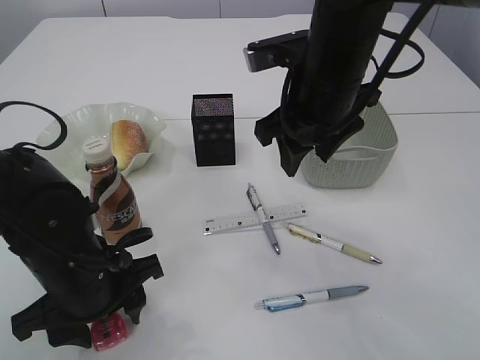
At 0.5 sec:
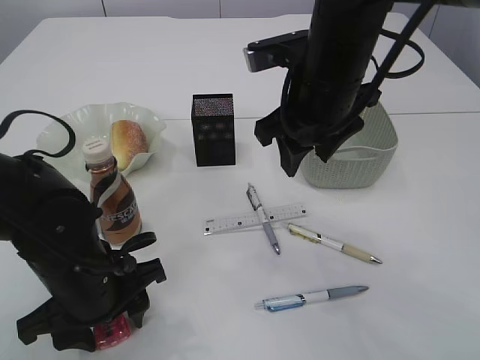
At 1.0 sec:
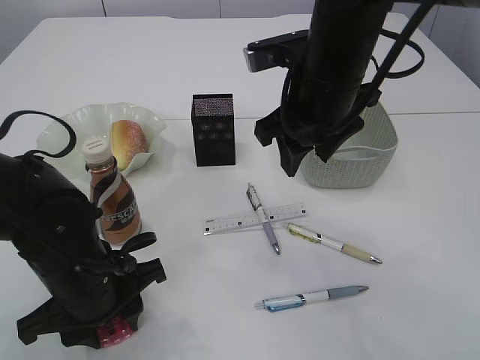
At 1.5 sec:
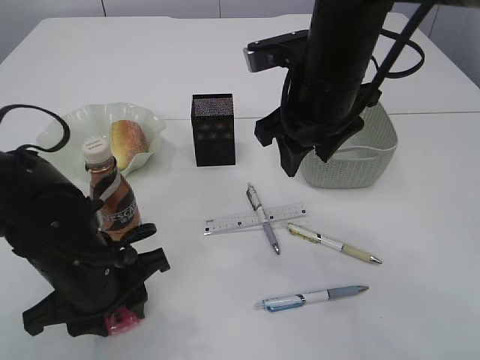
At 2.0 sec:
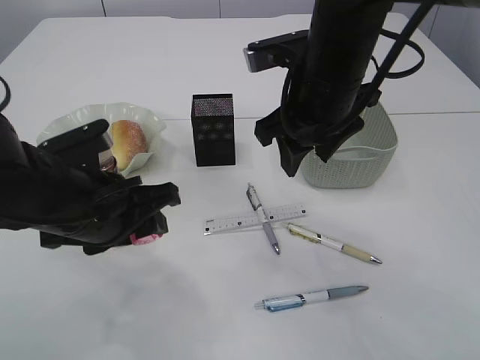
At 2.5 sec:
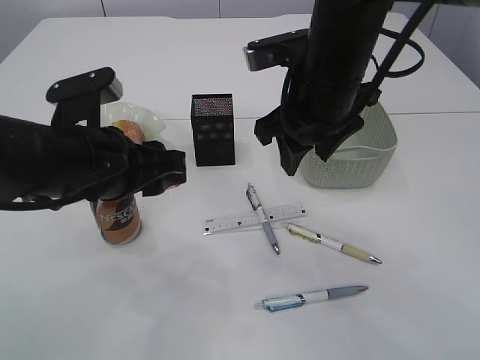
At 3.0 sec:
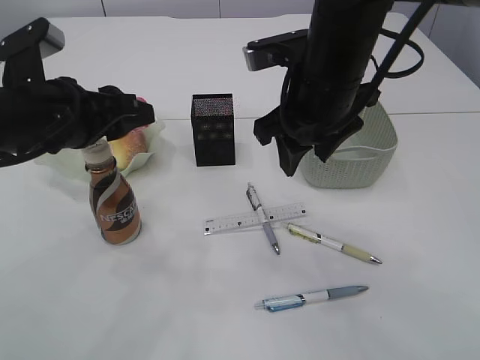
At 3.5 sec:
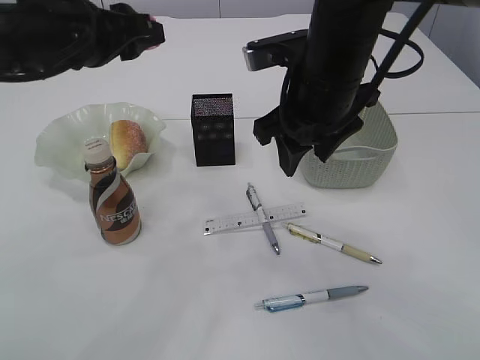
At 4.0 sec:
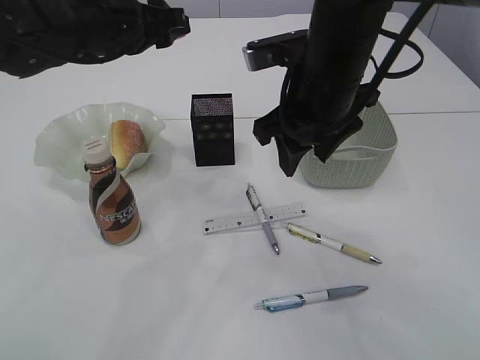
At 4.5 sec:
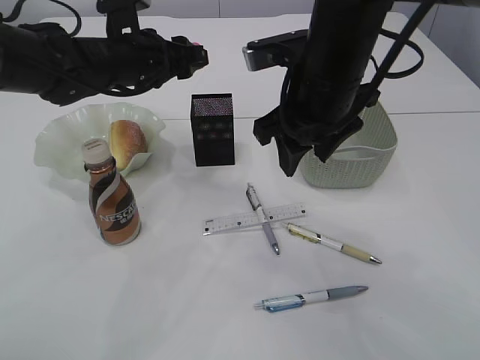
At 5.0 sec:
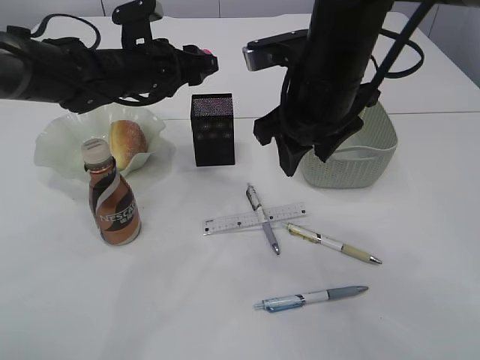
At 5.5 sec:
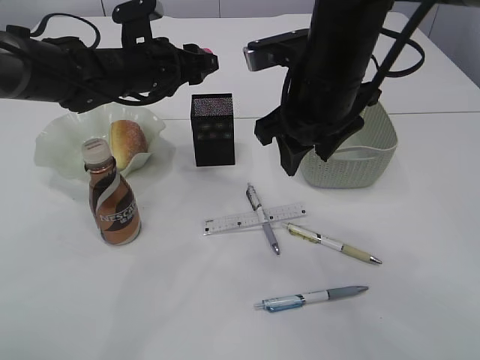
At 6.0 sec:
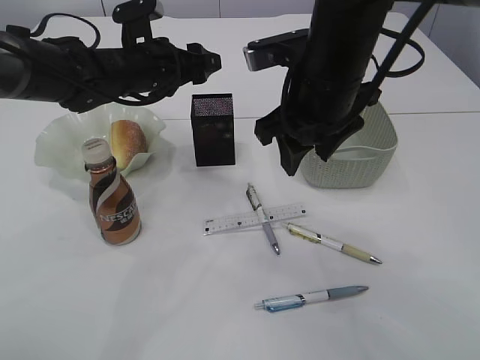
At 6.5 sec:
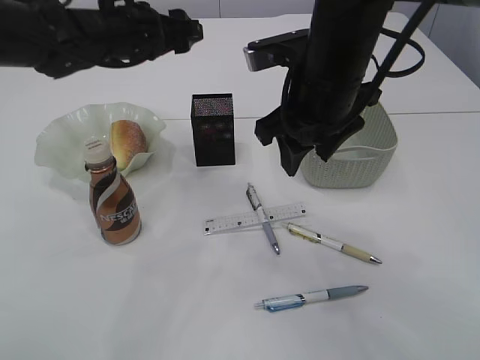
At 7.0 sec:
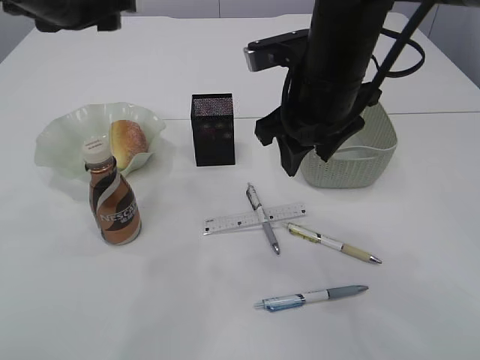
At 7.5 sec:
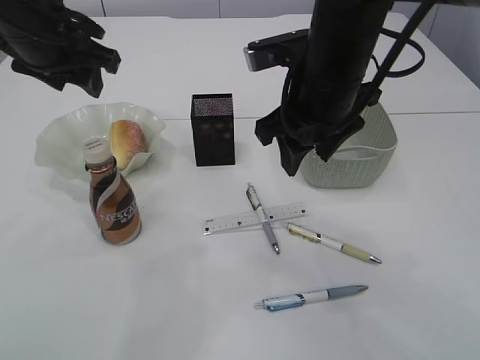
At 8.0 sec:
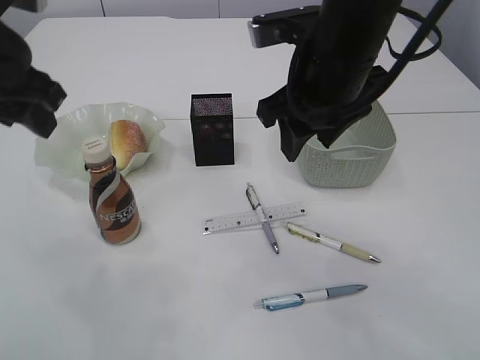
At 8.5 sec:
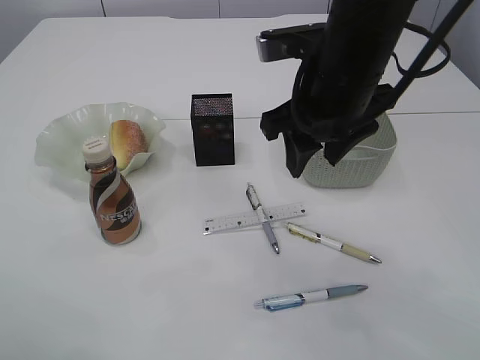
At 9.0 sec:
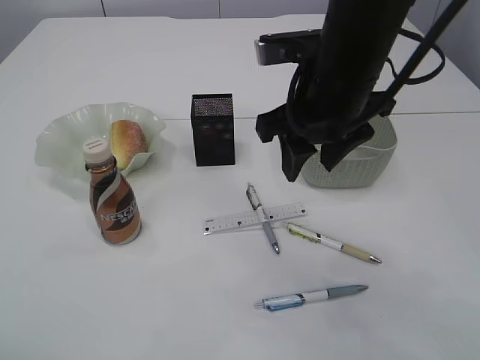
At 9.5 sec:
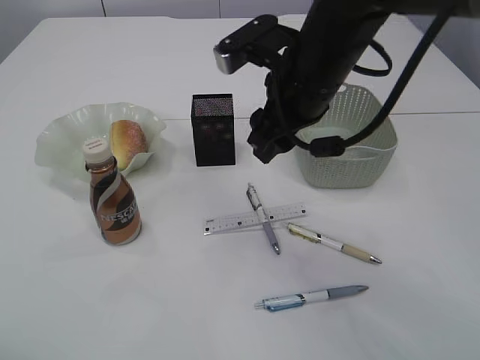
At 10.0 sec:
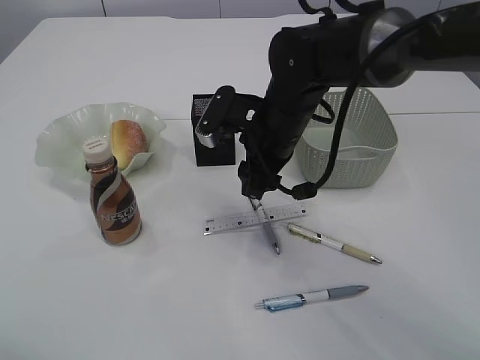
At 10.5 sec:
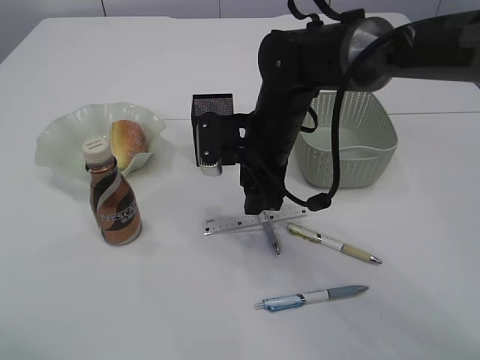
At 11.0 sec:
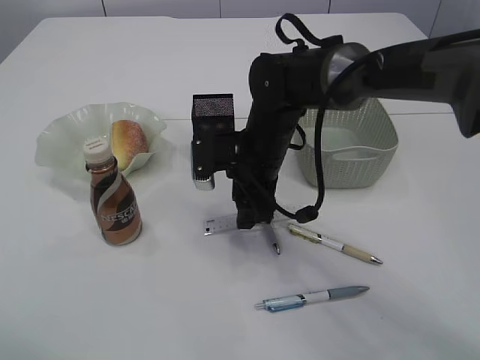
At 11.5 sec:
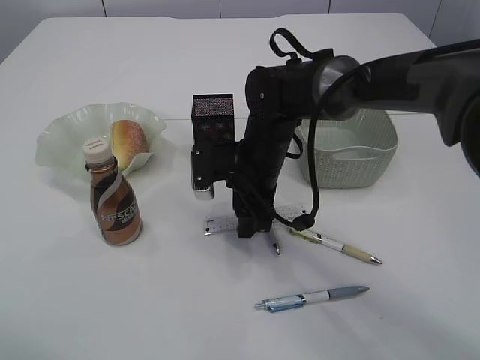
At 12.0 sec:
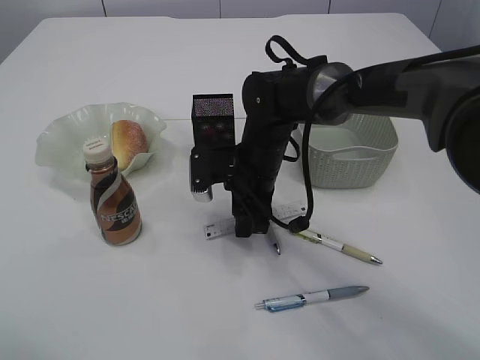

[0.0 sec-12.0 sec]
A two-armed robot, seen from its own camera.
Step, 2.0 sec to 5.5 sec: Place the red pencil sharpener into the pen holder.
0.0 sec to 2.0 sec: The left gripper travels upward by approximately 5 cm, and closes up.
2.0 sec to 4.0 sec: The left gripper shifts about 20 cm forward and upward.
4.0 sec to 6.0 sec: The left gripper goes some 5 cm downward, and opens up.
6.0 sec to 8.0 sec: The left gripper heads backward, upward and to the left, covering about 20 cm.
8.0 sec to 10.0 sec: The right gripper is displaced downward and forward by some 15 cm; the left gripper moves backward, approximately 15 cm.
10.0 sec to 12.0 sec: The right gripper is displaced downward by approximately 5 cm.

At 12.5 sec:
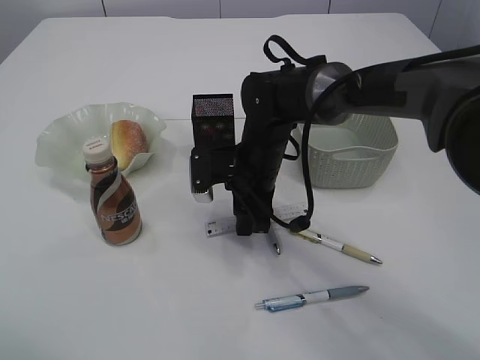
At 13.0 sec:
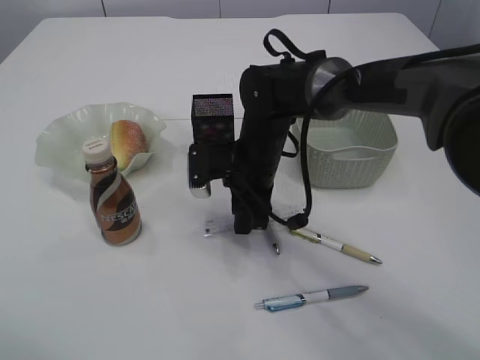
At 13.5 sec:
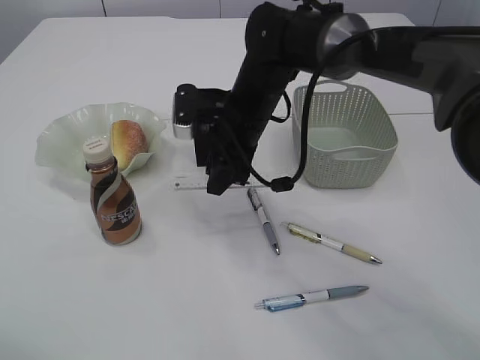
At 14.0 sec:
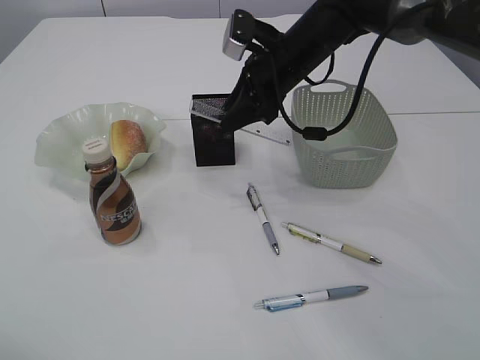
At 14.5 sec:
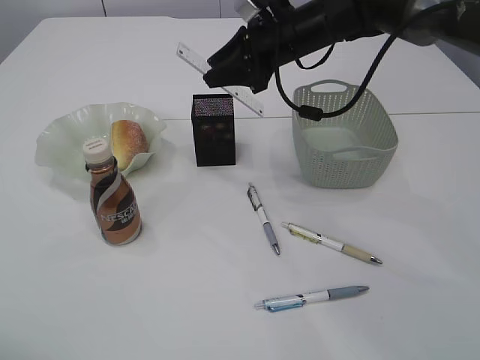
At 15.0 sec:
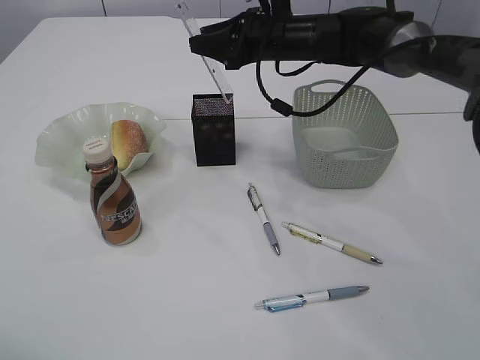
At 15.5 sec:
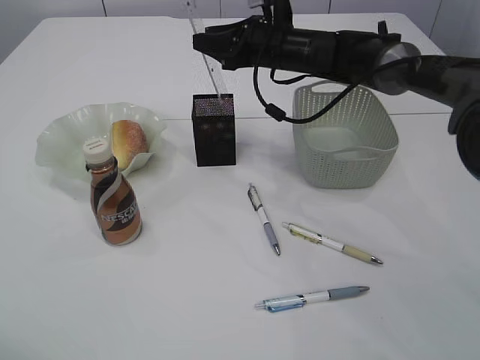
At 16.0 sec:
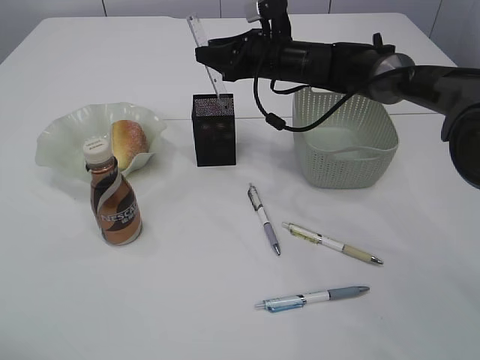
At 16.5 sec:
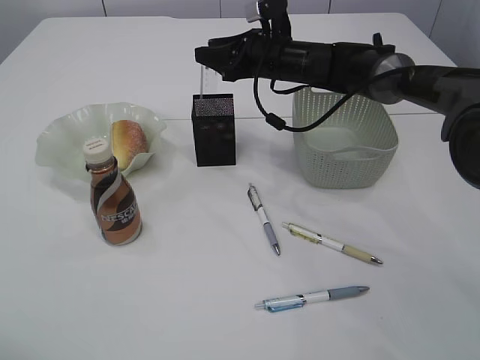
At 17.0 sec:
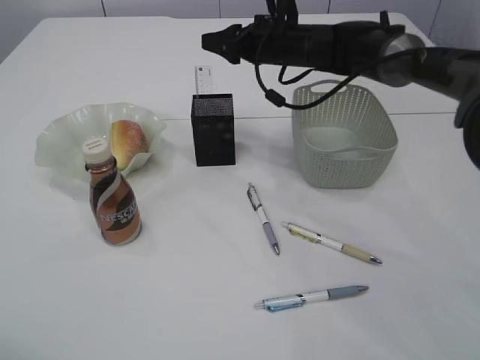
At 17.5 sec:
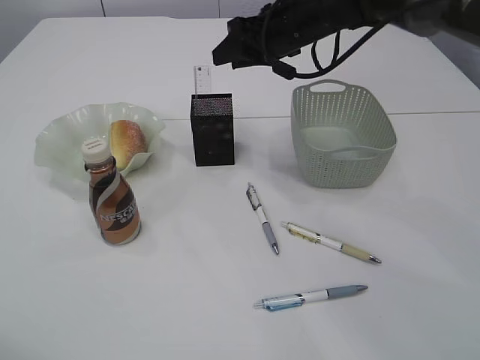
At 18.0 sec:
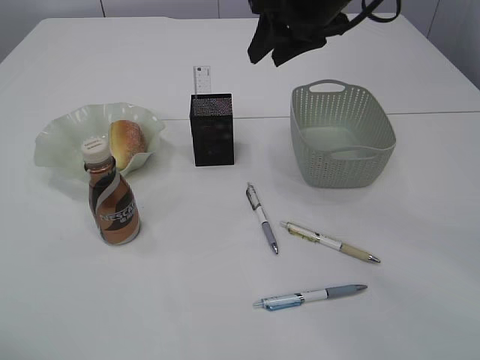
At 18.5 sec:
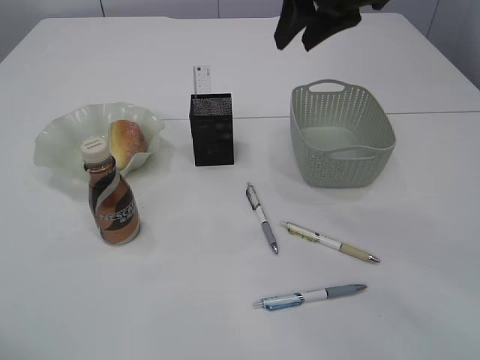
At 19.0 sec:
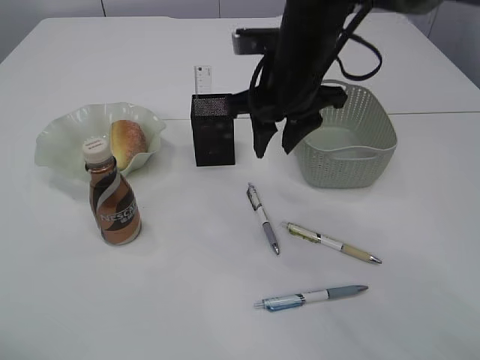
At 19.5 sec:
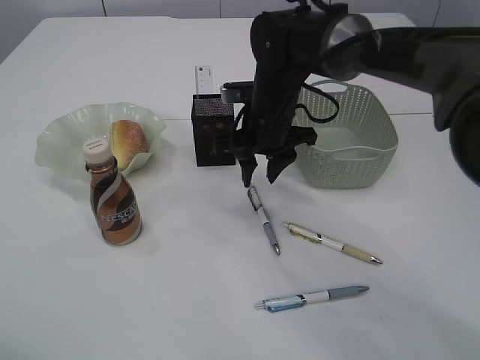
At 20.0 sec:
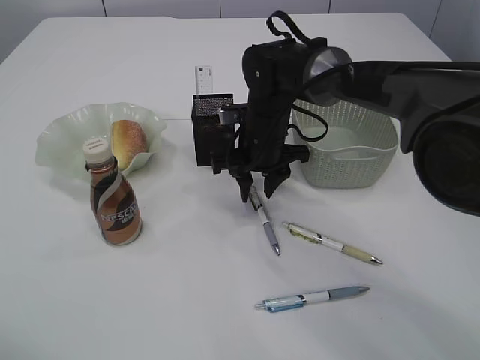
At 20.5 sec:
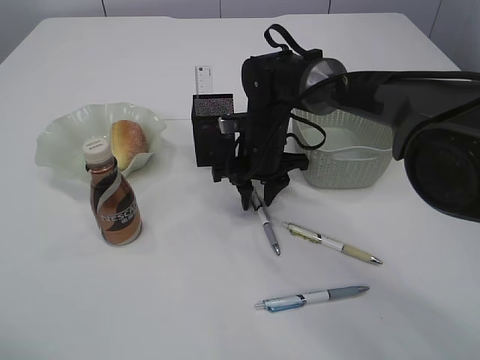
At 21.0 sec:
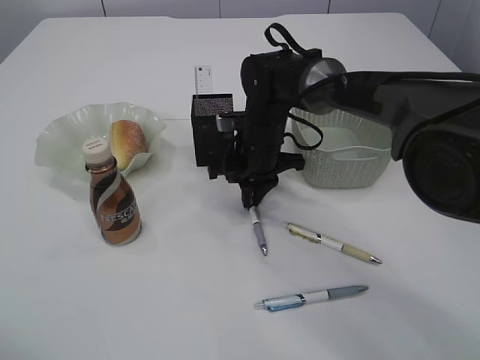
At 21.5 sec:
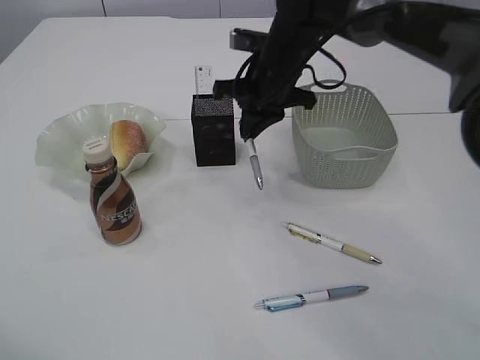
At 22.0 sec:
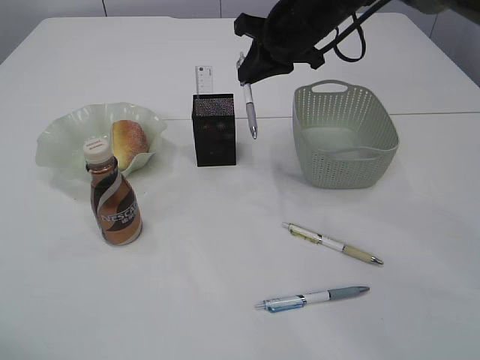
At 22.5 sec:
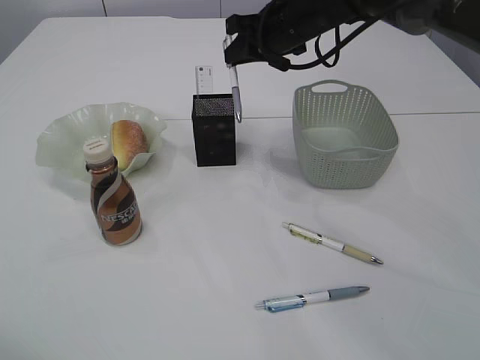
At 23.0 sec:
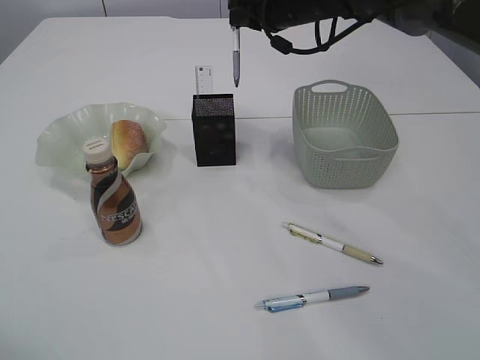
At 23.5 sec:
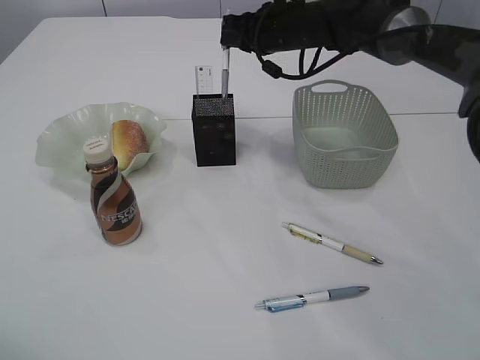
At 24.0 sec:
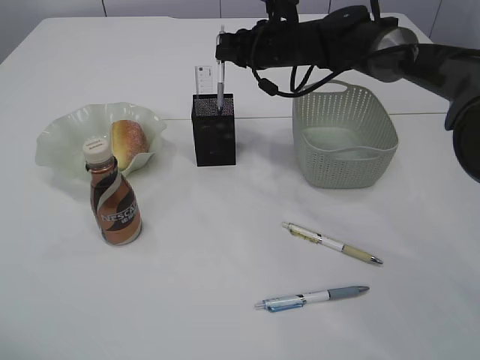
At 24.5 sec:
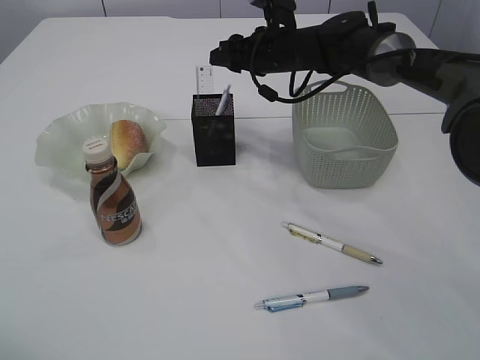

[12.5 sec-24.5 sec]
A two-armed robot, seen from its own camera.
Step, 14.0 sec to 16.5 sec: Place the ruler into the pen holder.
Step, 17.0 sec to 21.5 sec: Pick up the pen with right arm.
Step, 22.0 sec to 24.0 sec: Place the pen into the pen holder.
12.5 sec to 14.5 sec: The right gripper moves upward, forward and to the right, about 15 cm.
14.5 sec to 16.5 sec: The right gripper is displaced downward by about 5 cm.
16.5 sec to 18.5 sec: The right gripper travels upward and backward by some 20 cm.
18.5 sec to 20.5 sec: The right gripper moves downward, about 25 cm.
20.5 sec to 22.5 sec: The right gripper goes some 15 cm upward and forward, and closes its fingers.
22.5 sec to 24.5 sec: The right gripper shifts some 5 cm downward, and opens up.

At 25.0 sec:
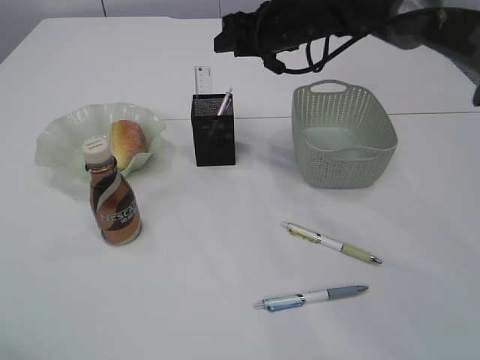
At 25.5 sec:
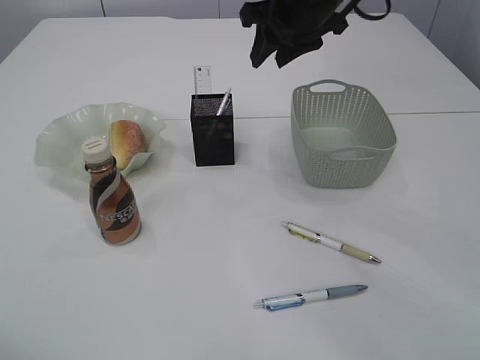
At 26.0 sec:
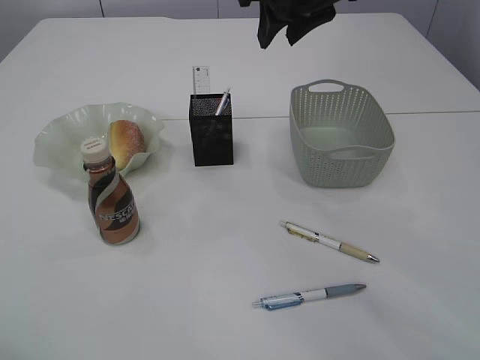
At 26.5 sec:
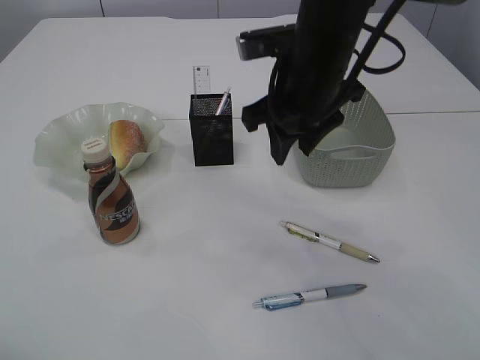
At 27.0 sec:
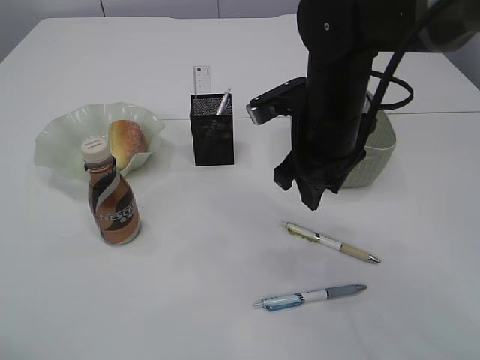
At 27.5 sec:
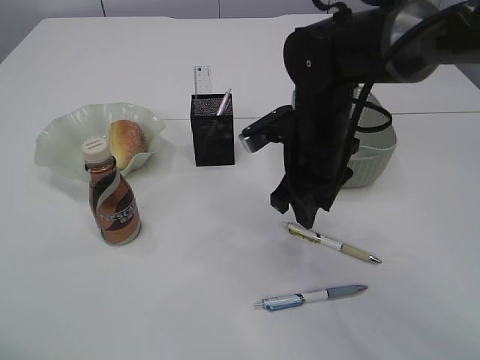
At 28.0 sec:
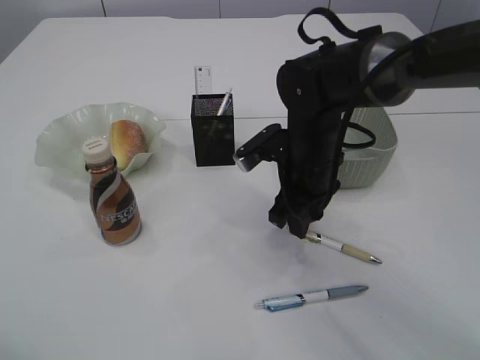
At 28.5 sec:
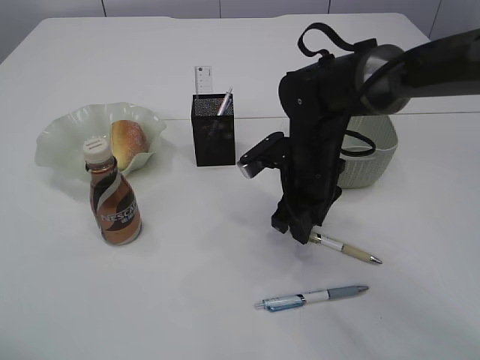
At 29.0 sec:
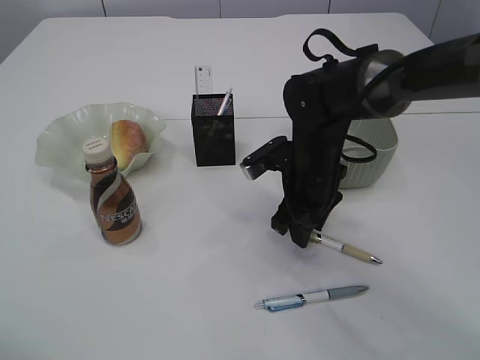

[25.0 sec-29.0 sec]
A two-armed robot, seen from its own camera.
25.0 sec to 27.0 sec: The right gripper heads backward, covering roughly 15 cm.
27.0 sec to 29.0 sec: The right gripper heads downward, covering some 10 cm.
